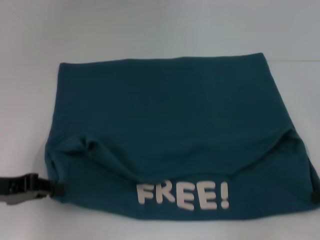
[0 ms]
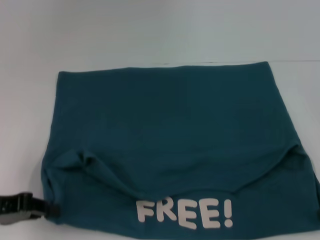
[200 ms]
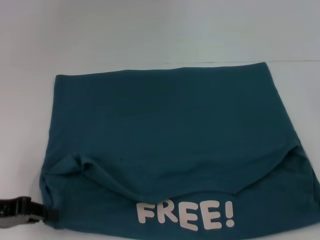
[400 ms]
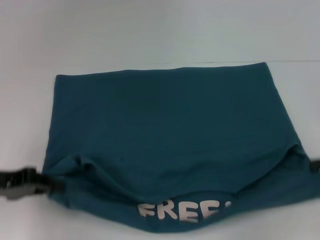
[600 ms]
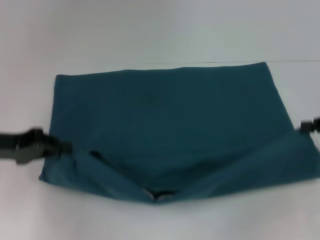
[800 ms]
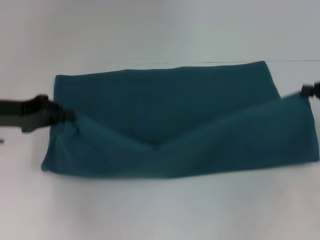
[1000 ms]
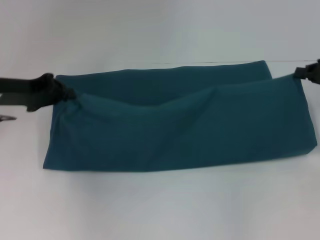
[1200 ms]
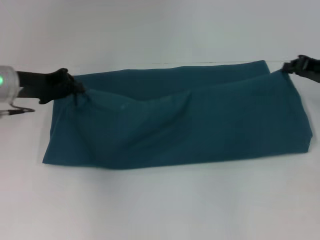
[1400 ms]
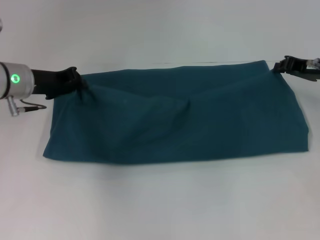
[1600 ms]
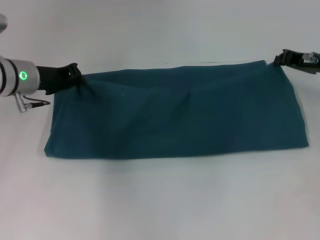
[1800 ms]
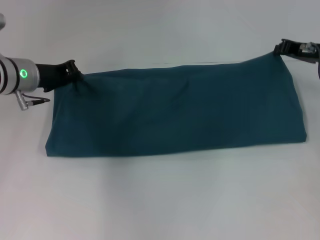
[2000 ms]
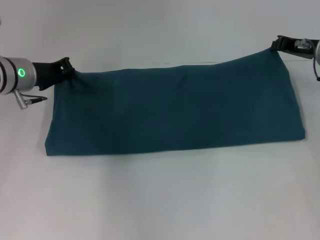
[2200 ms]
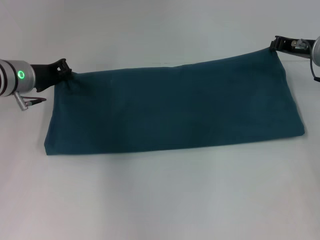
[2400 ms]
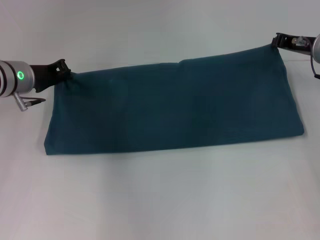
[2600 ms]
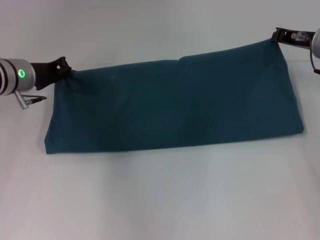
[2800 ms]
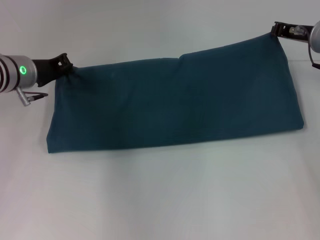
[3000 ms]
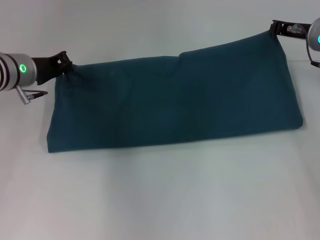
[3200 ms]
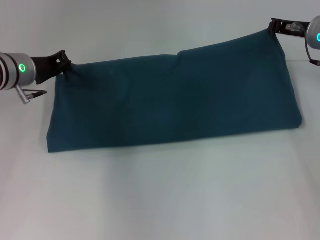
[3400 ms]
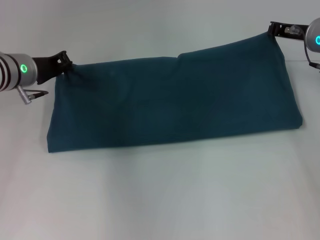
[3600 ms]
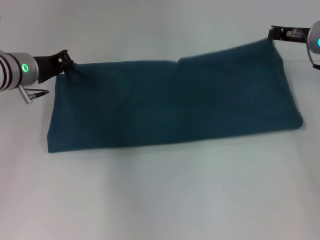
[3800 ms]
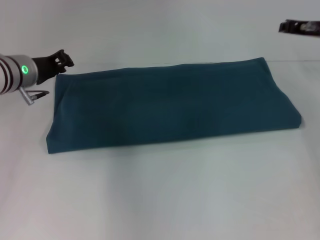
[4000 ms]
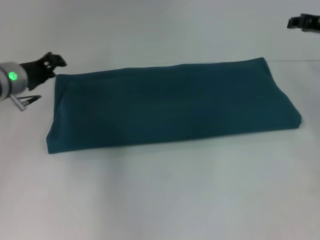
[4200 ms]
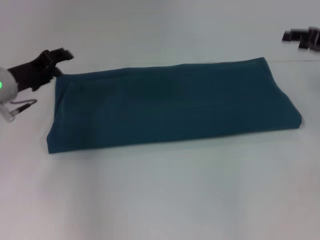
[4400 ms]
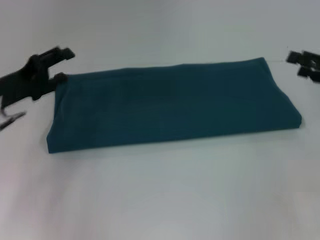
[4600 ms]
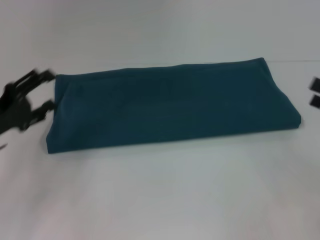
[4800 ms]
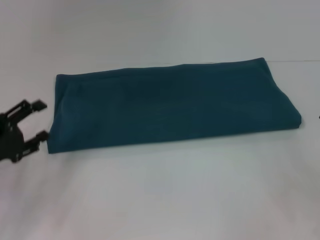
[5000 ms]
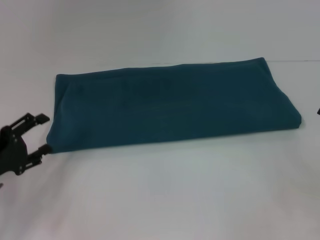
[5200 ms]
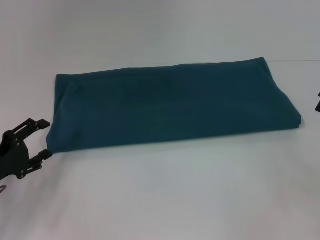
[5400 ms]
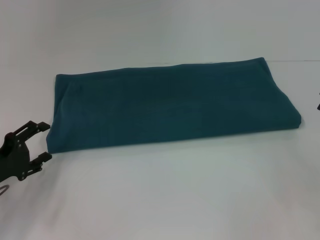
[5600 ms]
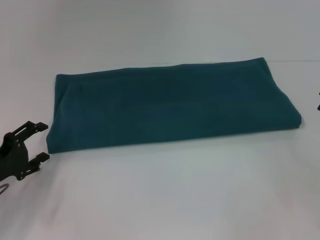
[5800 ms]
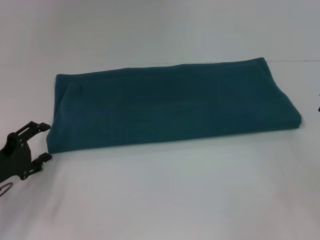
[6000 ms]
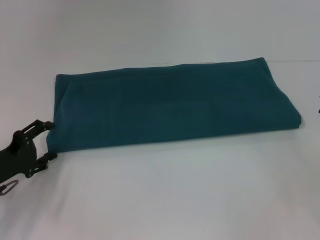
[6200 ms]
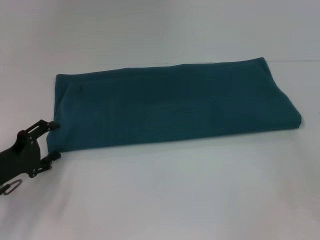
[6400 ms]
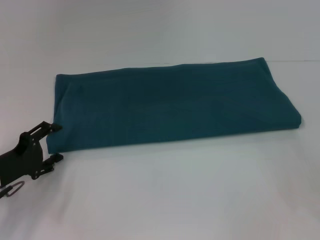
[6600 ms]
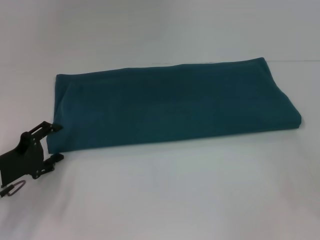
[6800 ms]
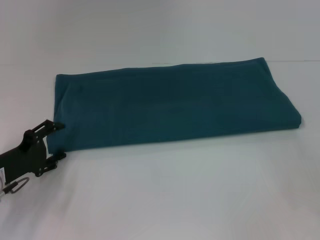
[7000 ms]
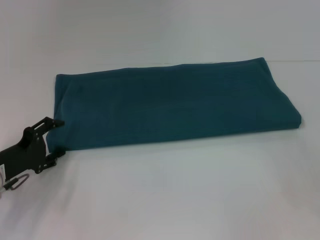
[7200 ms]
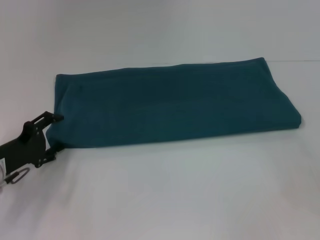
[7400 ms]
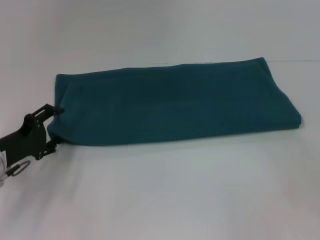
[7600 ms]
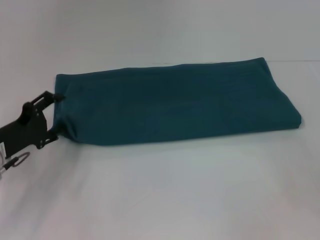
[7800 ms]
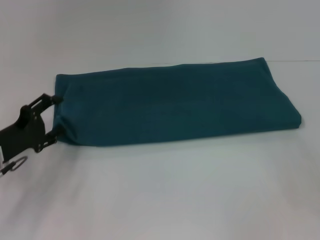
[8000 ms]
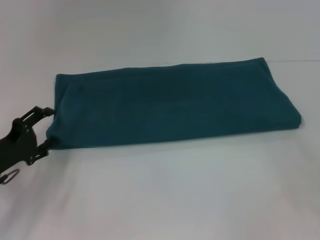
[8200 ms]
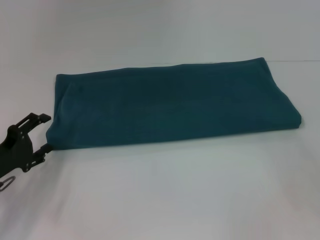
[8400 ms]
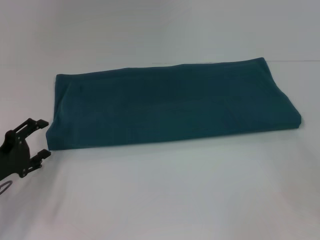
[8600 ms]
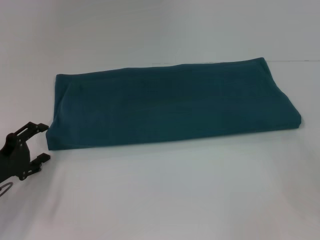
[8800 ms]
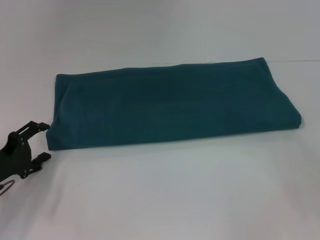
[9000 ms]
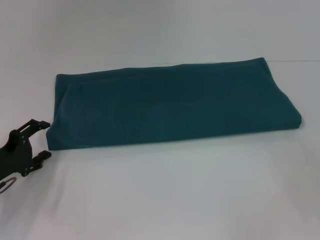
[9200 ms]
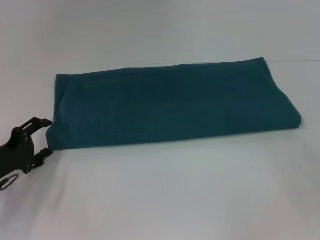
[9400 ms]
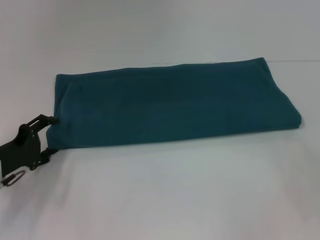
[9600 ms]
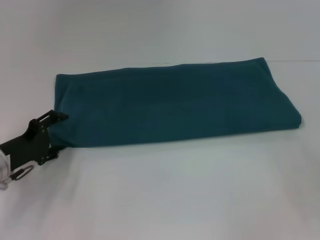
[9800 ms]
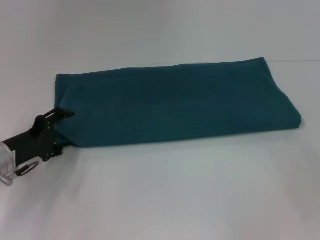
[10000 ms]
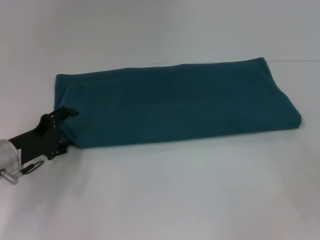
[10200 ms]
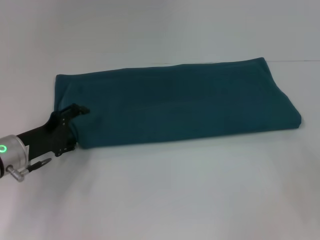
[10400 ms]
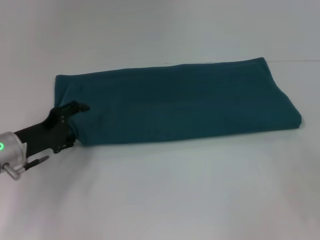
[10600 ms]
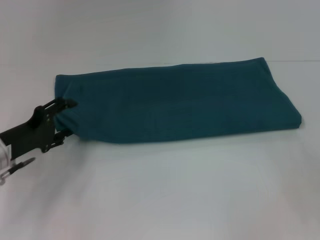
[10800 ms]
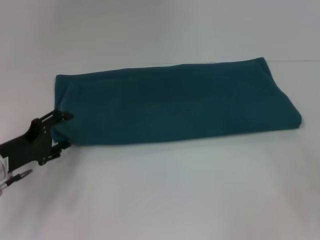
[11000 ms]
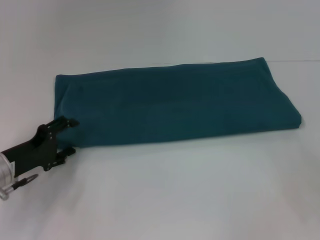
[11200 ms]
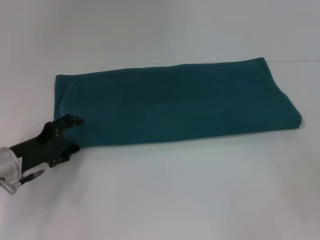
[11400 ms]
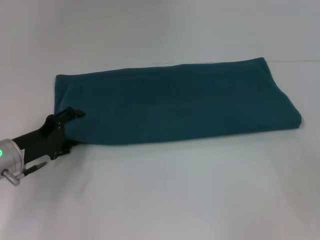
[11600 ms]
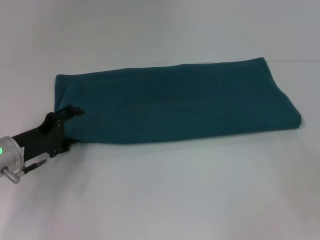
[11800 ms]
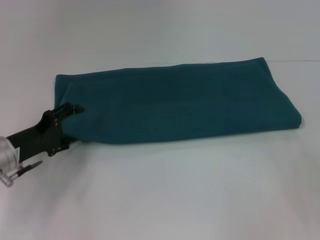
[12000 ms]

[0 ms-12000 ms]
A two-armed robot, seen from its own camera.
Step, 400 ms to 4200 ms: Fold the clothes to the right.
0 ms to 1600 ms: The left gripper moves forward, some 15 cm. Meanwhile the right gripper goes some 15 cm forward and to the left.
1600 ms to 3000 ms: The right gripper shifts by about 5 cm.
3000 ms to 4400 ms: The left gripper shifts by about 5 cm, and opens, while the right gripper travels to the right by roughly 5 cm, and opens up.
4400 ms to 6000 ms: The right gripper moves backward, approximately 15 cm, and opens its fingers; the left gripper goes about 15 cm backward and downward, and opens up.
6000 ms to 9000 ms: The grippers move only a little.
9000 ms to 10400 ms: The left gripper moves roughly 5 cm.
10400 ms to 12000 ms: The grippers make only small movements.

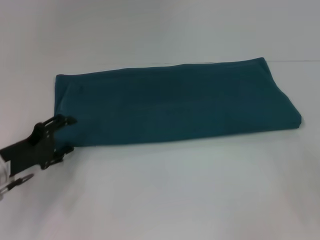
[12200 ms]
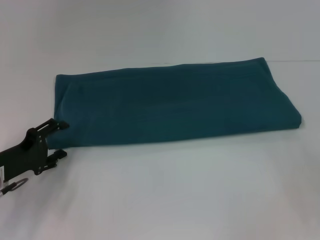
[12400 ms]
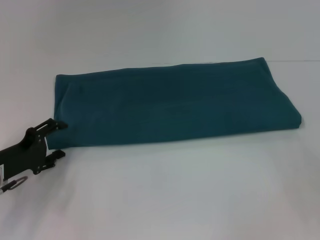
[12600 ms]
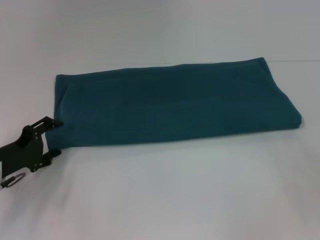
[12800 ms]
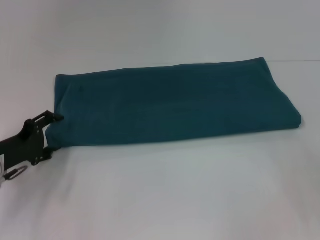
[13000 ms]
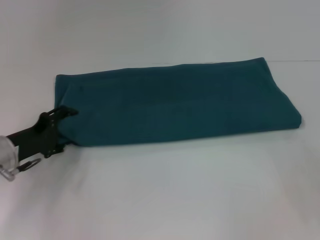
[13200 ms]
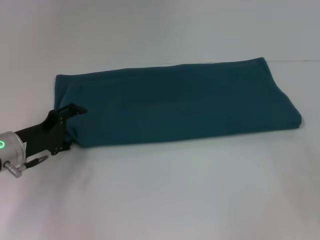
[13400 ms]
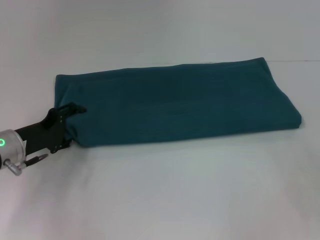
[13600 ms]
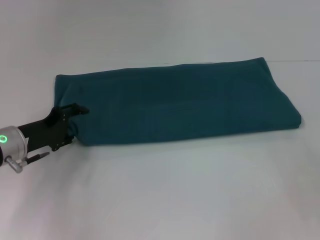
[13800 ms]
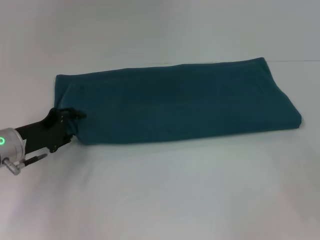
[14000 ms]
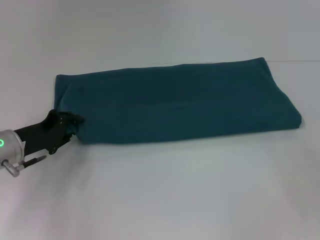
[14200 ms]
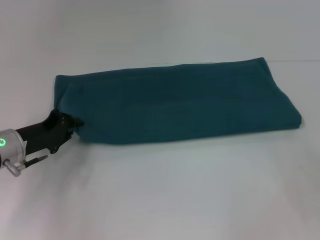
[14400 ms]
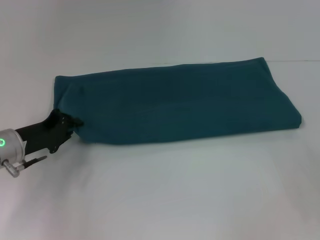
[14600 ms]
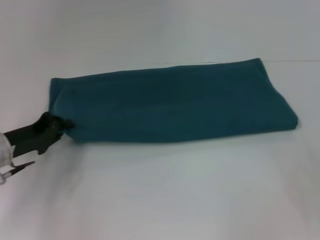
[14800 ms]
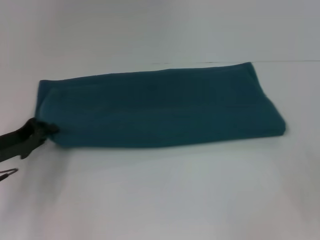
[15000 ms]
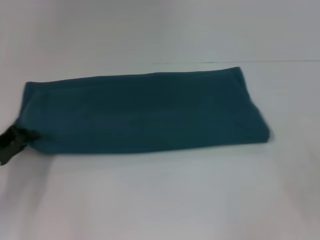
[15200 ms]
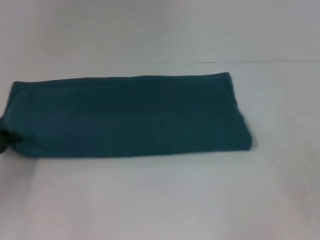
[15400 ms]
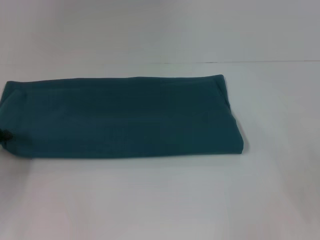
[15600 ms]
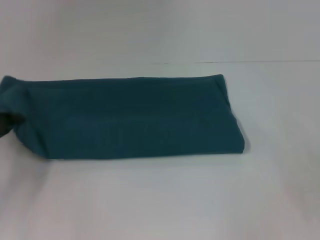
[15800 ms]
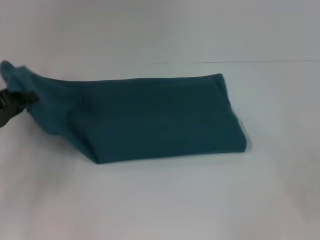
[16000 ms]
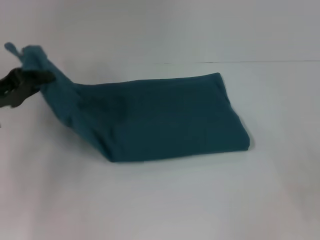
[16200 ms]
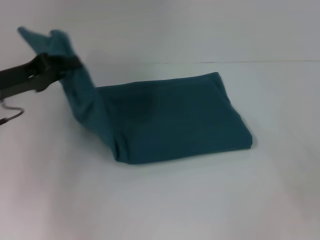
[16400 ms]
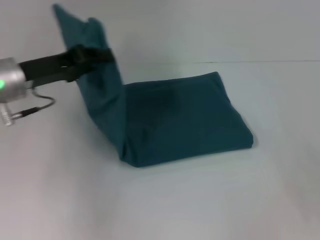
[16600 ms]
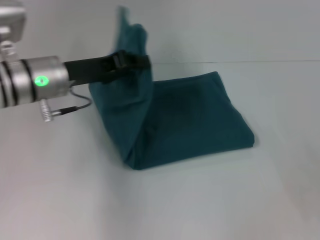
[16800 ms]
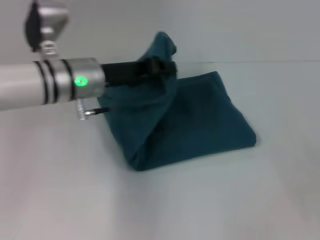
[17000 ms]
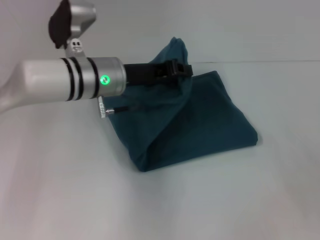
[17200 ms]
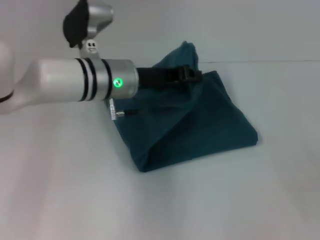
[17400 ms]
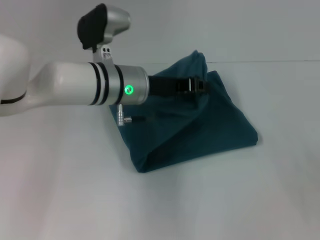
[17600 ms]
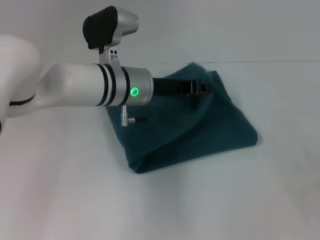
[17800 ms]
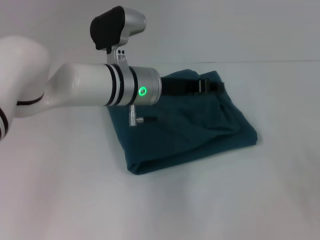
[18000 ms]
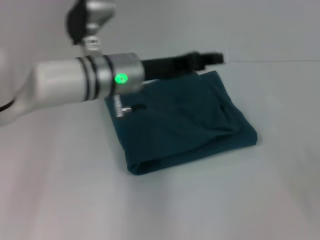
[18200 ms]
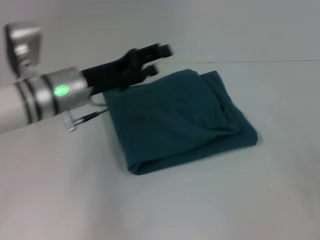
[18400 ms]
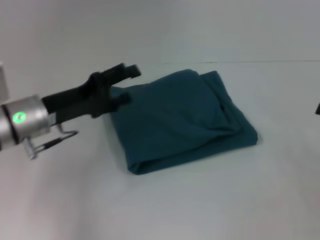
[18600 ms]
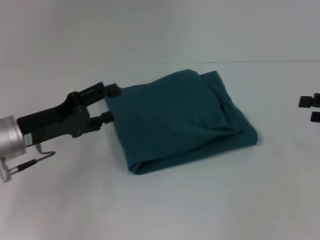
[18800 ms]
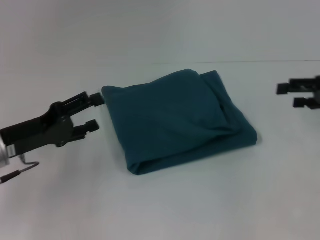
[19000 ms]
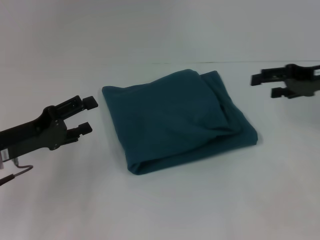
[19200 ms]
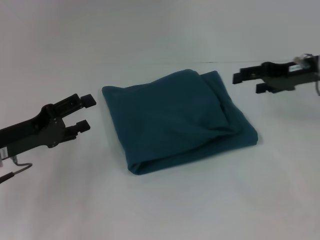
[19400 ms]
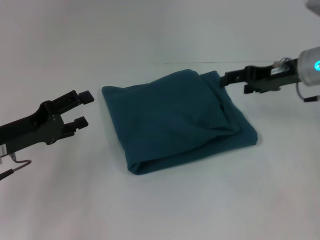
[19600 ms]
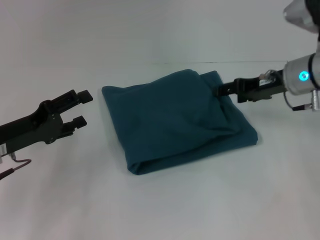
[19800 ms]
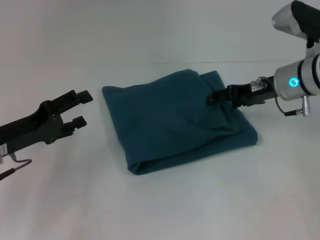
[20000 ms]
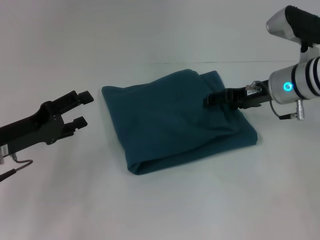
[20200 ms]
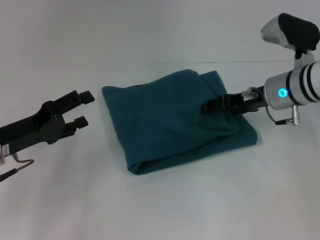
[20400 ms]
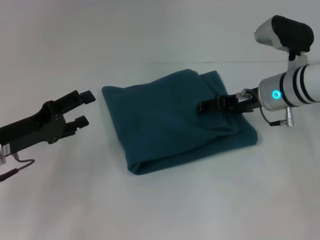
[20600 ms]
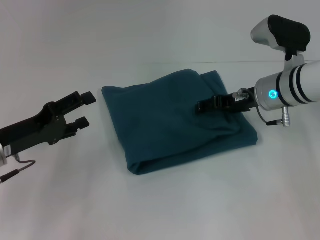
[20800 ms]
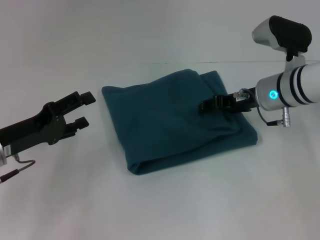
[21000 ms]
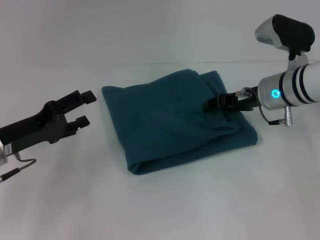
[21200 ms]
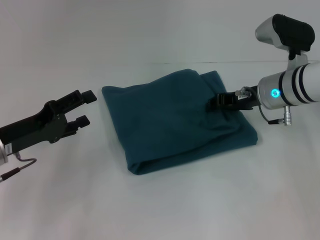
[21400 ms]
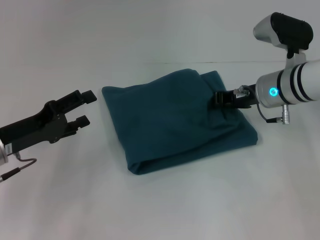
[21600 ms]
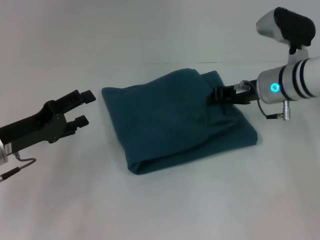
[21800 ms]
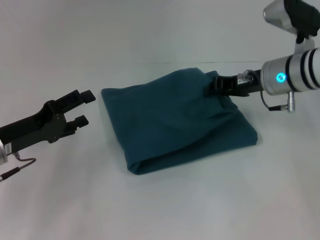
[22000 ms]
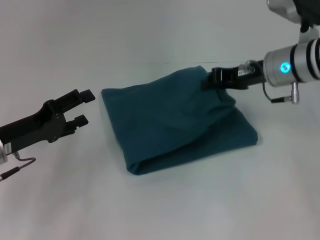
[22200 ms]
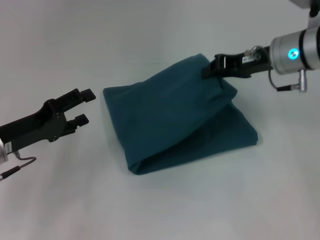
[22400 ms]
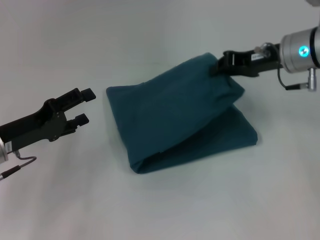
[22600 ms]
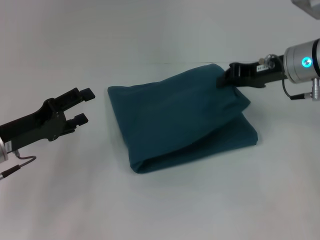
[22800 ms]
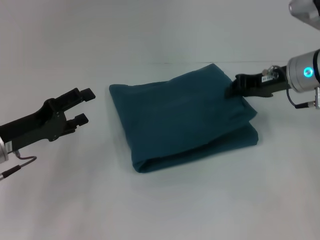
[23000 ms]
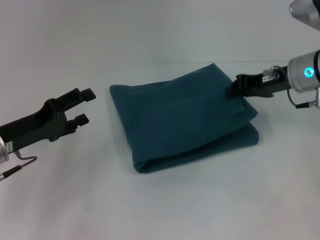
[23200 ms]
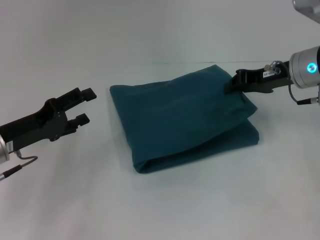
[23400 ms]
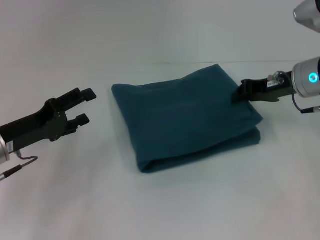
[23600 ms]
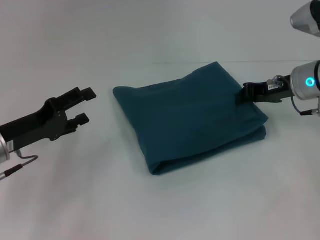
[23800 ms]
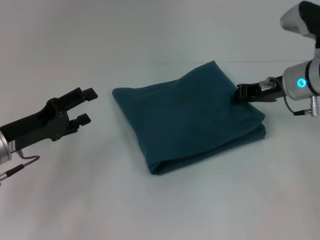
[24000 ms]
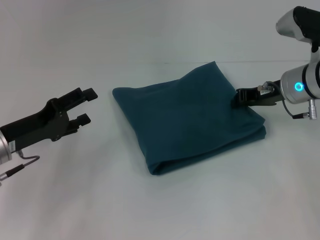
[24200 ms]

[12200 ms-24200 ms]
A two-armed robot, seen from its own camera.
Step, 12200 ms to 18000 ms: Fold the clothes to the left.
12200 ms to 13800 ms: The grippers make only small movements.
13800 ms to 15200 ms: The left gripper is displaced to the left by approximately 5 cm, and closes up.
15200 ms to 16600 ms: The left gripper travels upward, to the right and forward by some 15 cm.
16600 ms to 18200 ms: The left gripper travels to the right by approximately 15 cm.
18200 ms to 19800 ms: The right gripper goes approximately 25 cm forward and to the left; the left gripper is displaced to the left and backward by roughly 20 cm, and opens up.
19800 ms to 21200 ms: The grippers stay close to where they were, moving slightly.
21200 ms to 22600 ms: The right gripper shifts approximately 5 cm upward, and closes.
22600 ms to 24200 ms: The right gripper moves downward, about 5 cm.
